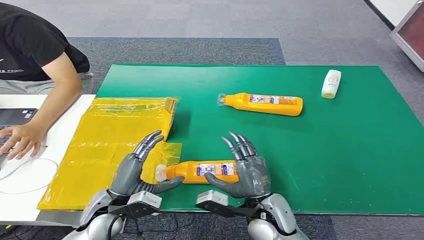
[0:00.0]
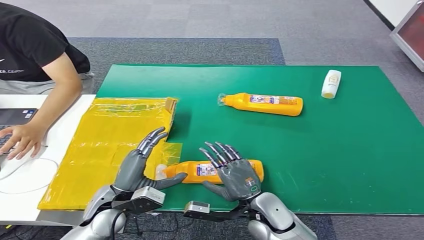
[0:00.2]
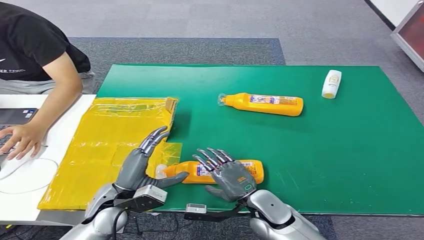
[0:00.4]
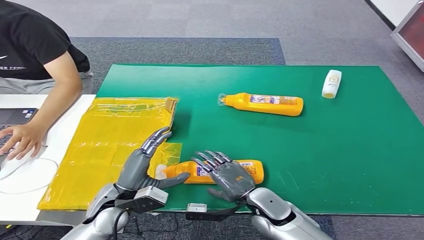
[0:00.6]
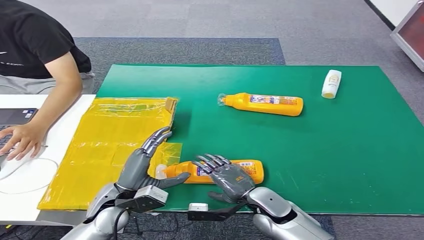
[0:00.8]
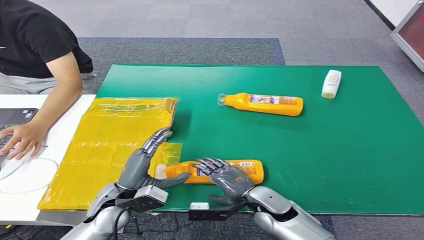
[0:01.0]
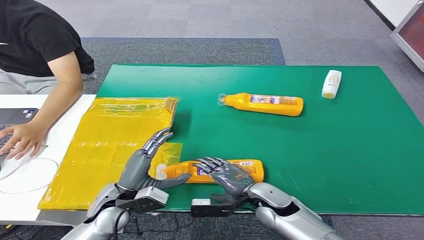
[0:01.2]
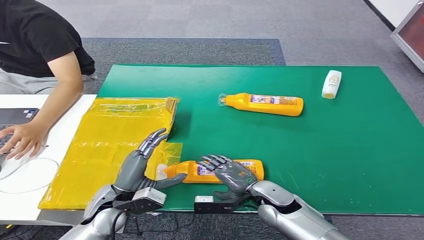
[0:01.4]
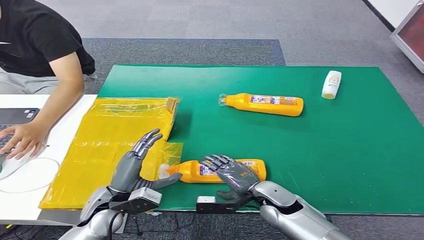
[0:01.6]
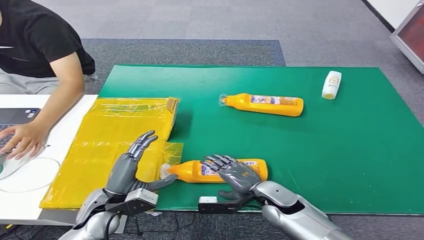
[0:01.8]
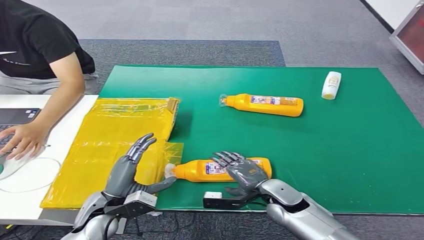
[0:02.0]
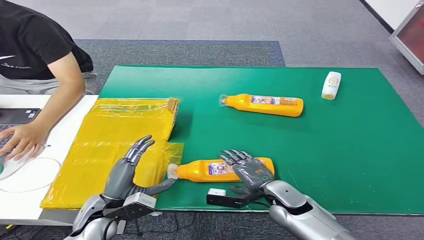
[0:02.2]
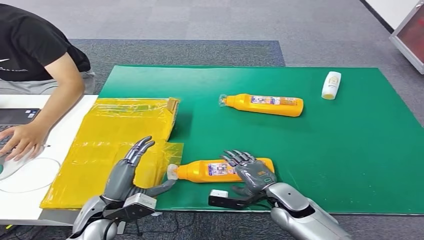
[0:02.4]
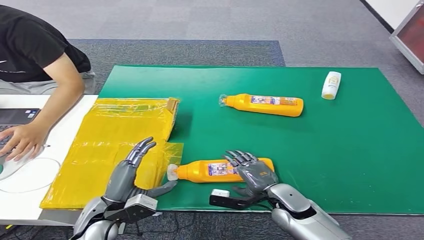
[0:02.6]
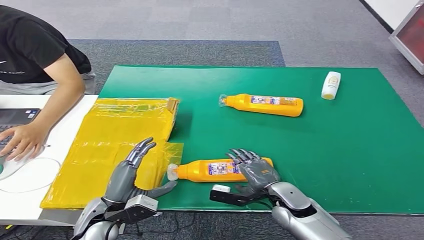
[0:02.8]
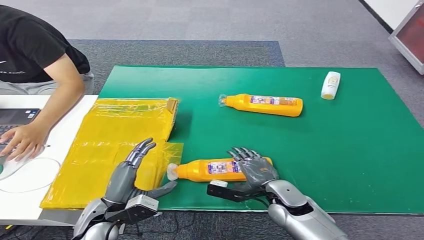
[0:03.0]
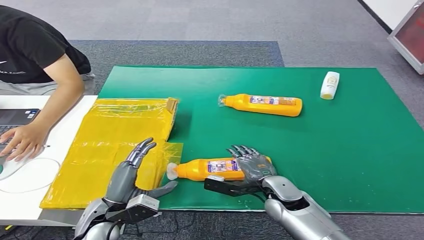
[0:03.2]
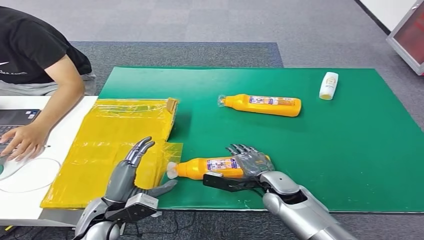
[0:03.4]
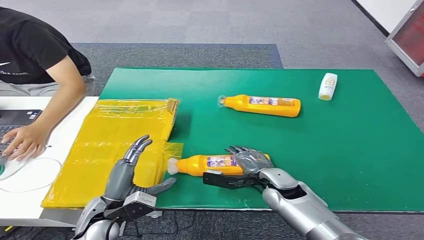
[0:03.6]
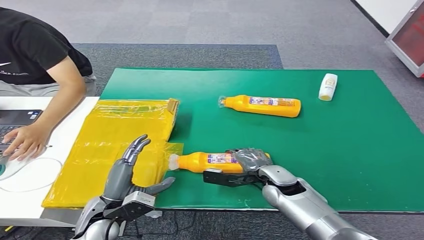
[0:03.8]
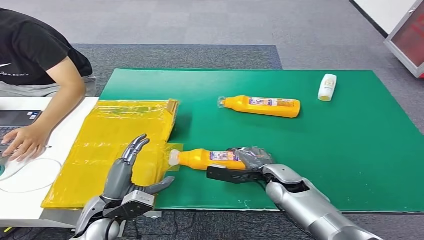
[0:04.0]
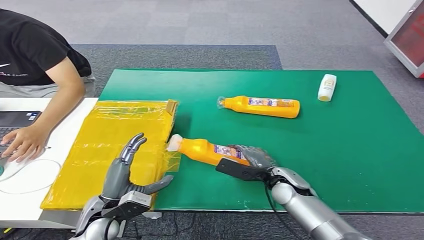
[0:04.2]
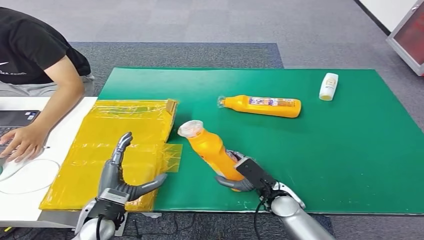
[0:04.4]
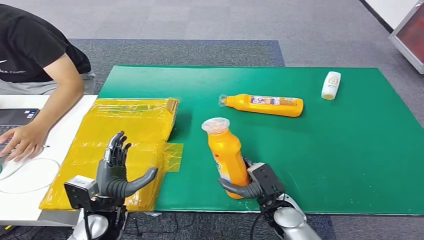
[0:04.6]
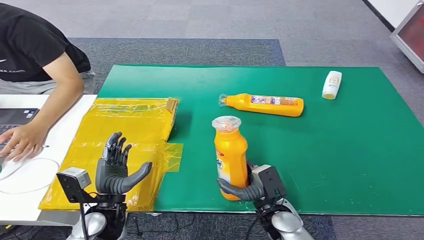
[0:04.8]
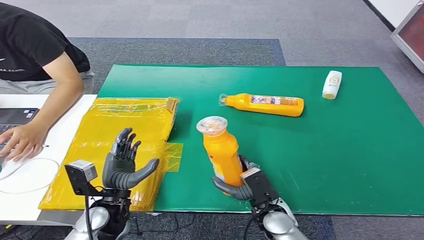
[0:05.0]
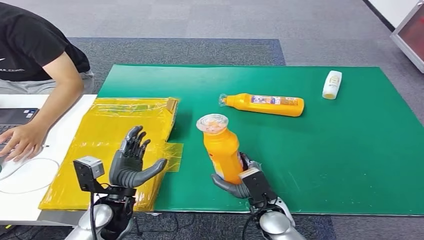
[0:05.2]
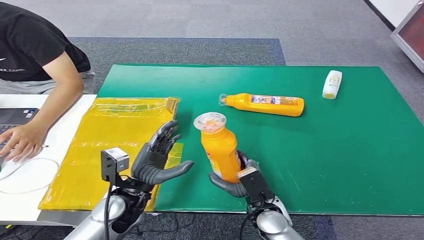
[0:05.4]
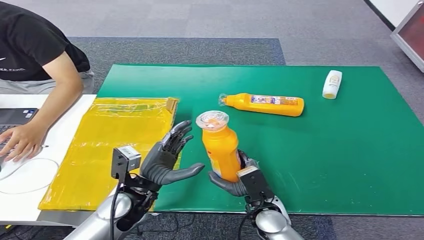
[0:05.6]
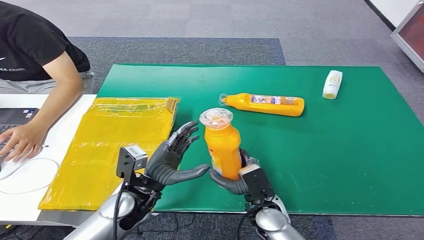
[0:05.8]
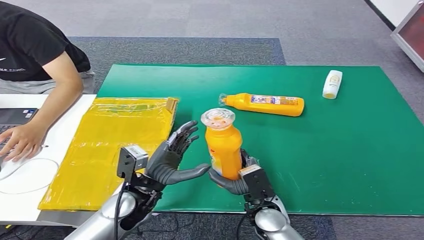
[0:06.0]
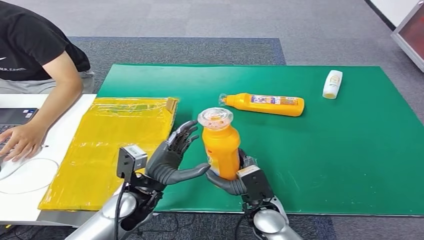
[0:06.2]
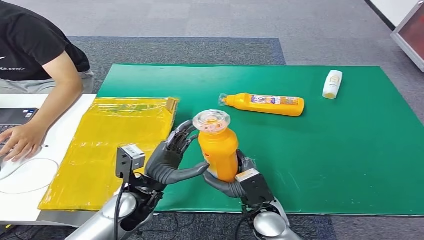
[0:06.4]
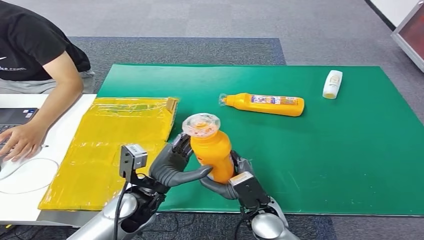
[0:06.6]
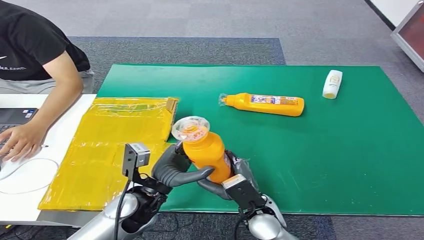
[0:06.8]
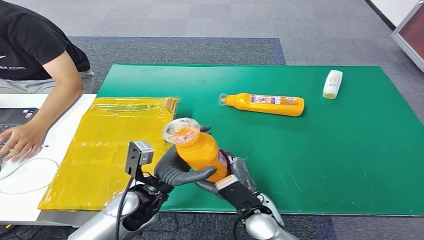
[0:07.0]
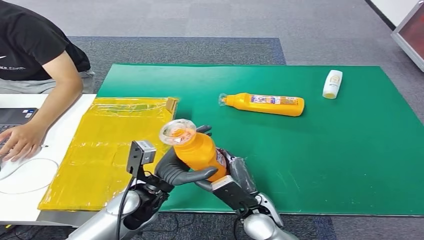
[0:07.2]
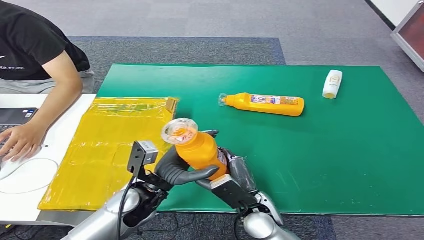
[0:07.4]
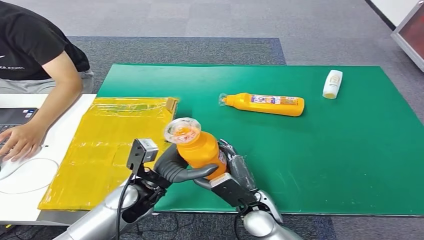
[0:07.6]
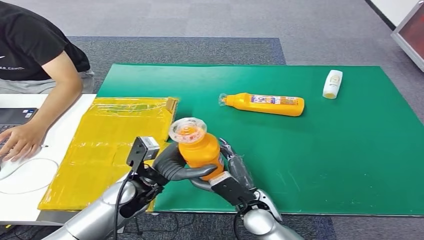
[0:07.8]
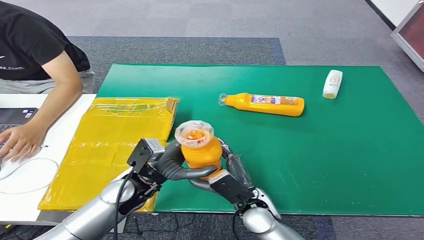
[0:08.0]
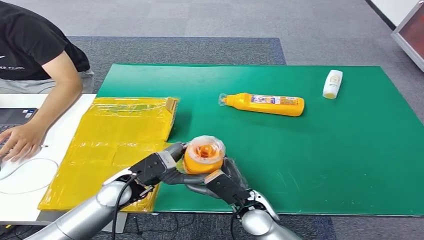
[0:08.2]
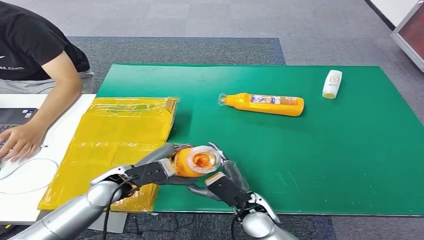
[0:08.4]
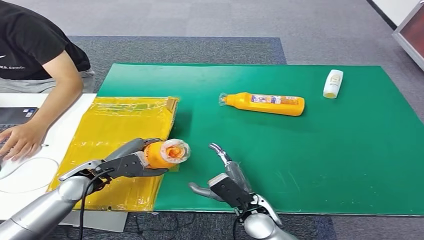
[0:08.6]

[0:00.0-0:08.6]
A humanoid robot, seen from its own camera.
Step, 0:00.0 to 0:05.4: Pick up the bottle from the table.
Step, 0:05.6 to 0:08.6: Turn the bottle to the front side.
0:01.4 to 0:02.8: The hands move only a little.
0:05.8 to 0:07.2: The hands make only small movements.
0:07.2 to 0:08.6: The left hand is displaced to the left by roughly 15 cm.

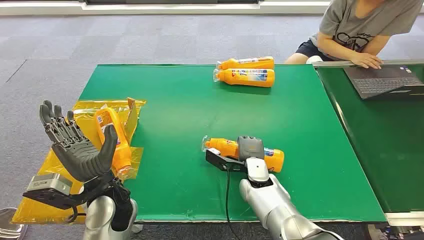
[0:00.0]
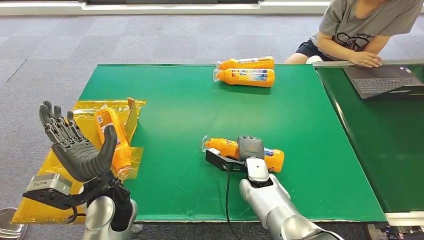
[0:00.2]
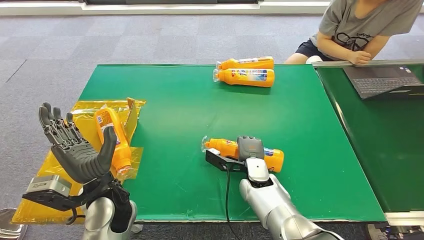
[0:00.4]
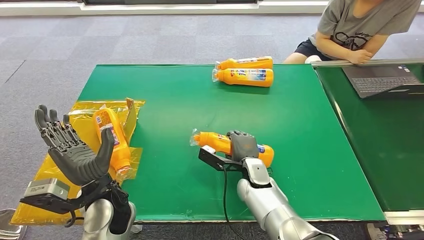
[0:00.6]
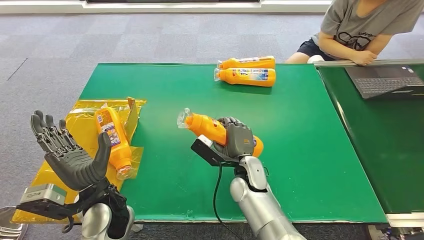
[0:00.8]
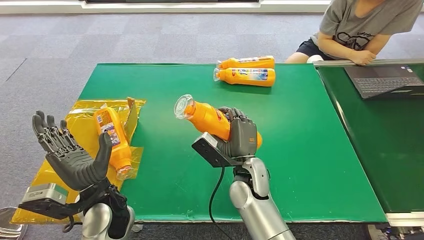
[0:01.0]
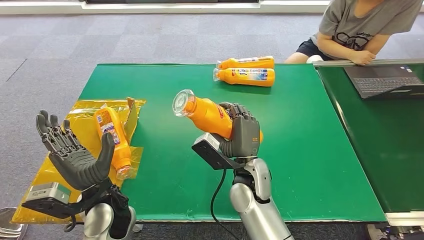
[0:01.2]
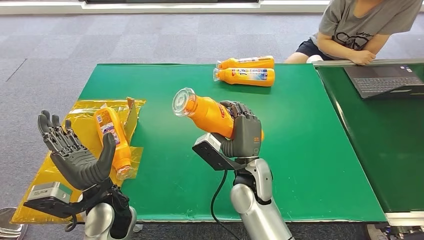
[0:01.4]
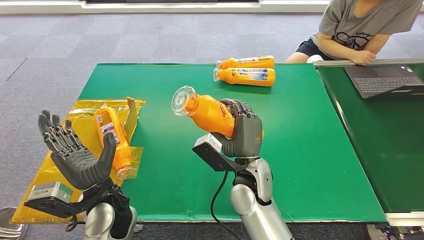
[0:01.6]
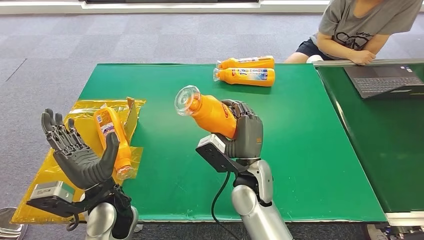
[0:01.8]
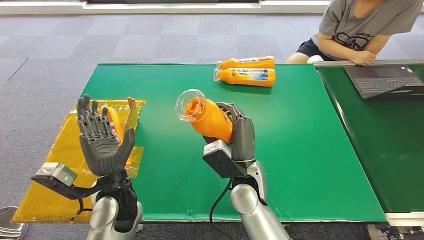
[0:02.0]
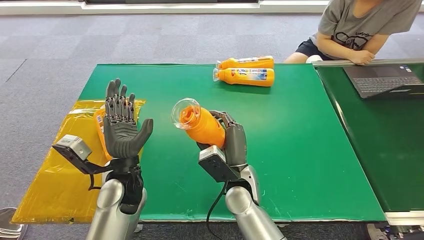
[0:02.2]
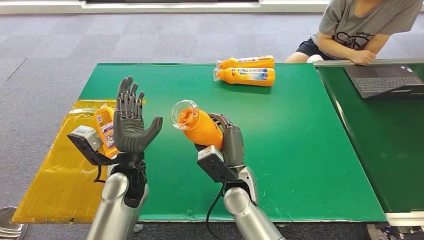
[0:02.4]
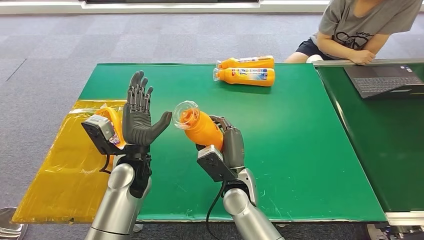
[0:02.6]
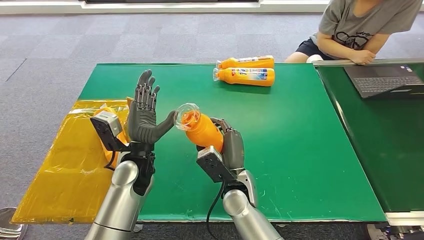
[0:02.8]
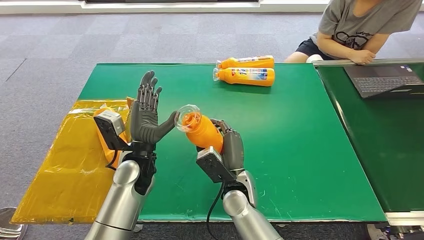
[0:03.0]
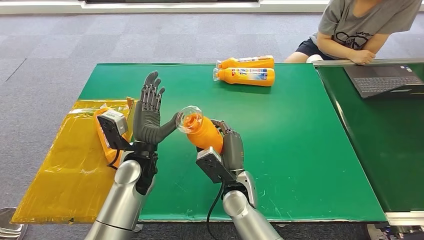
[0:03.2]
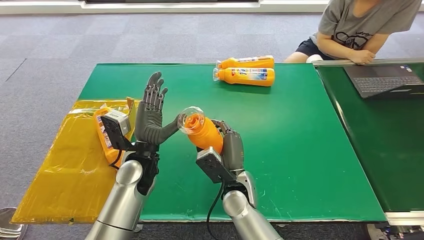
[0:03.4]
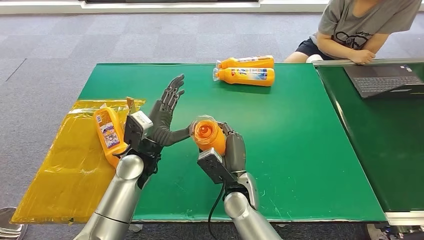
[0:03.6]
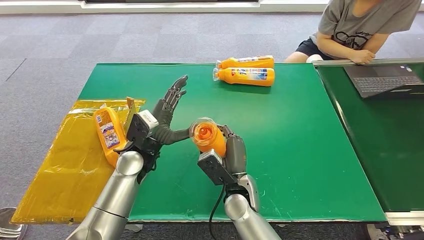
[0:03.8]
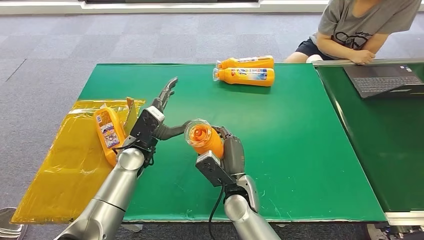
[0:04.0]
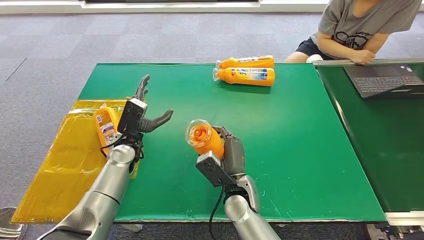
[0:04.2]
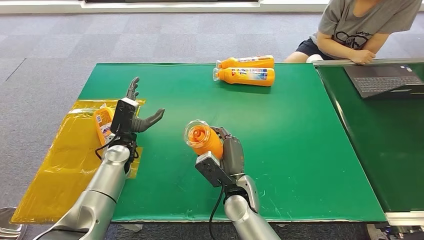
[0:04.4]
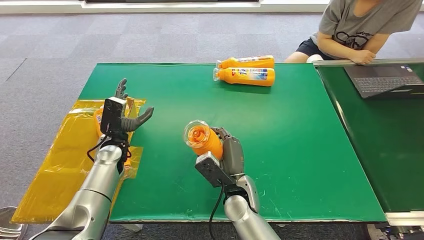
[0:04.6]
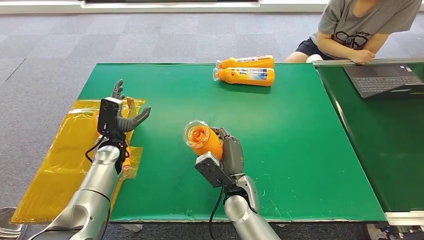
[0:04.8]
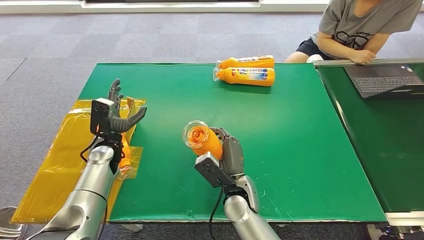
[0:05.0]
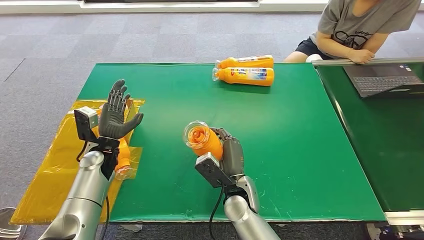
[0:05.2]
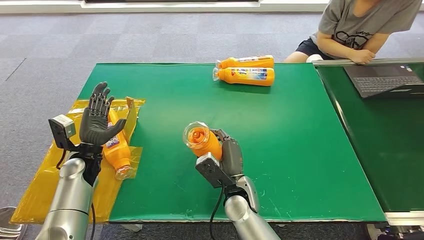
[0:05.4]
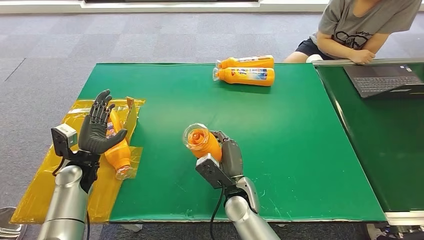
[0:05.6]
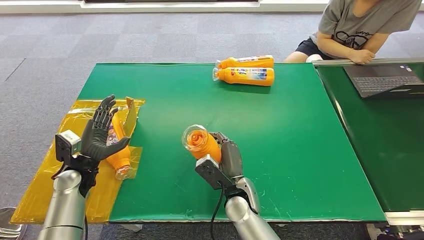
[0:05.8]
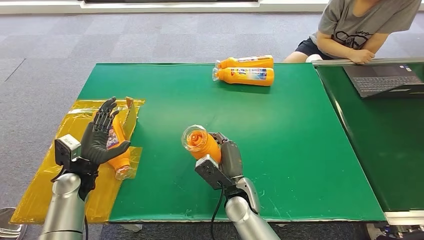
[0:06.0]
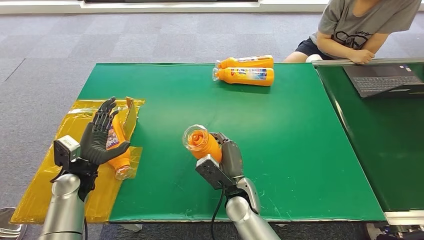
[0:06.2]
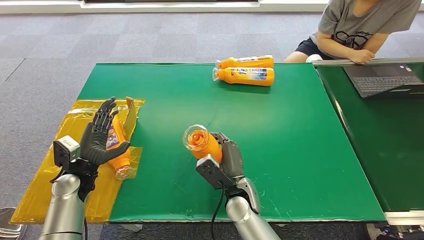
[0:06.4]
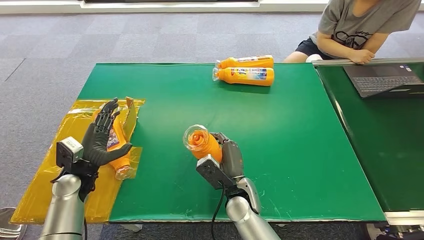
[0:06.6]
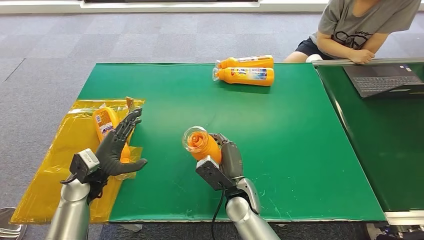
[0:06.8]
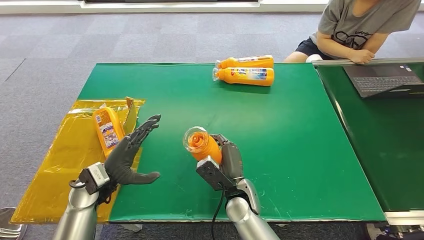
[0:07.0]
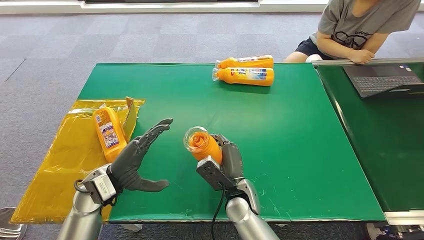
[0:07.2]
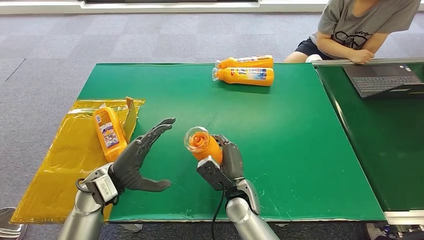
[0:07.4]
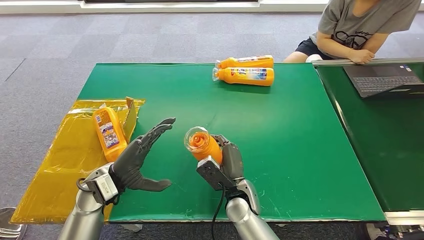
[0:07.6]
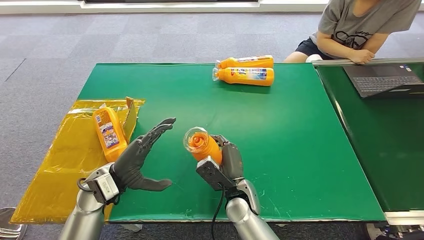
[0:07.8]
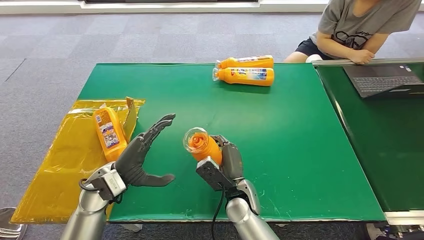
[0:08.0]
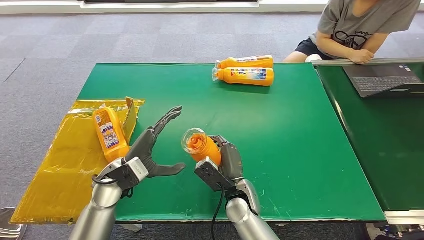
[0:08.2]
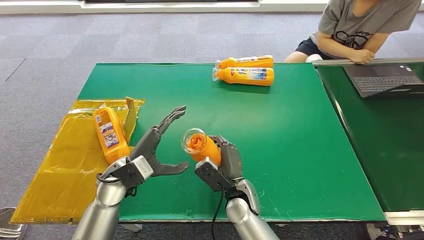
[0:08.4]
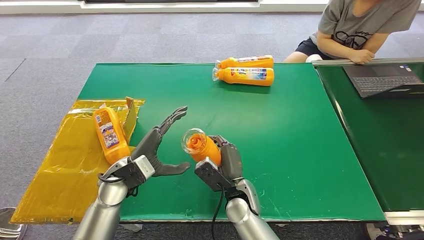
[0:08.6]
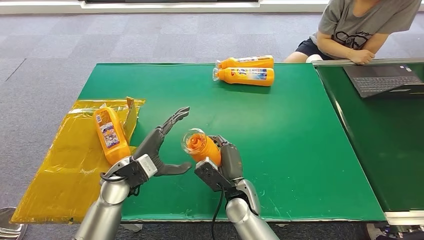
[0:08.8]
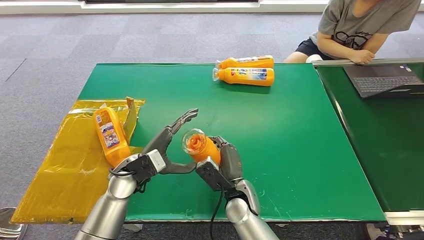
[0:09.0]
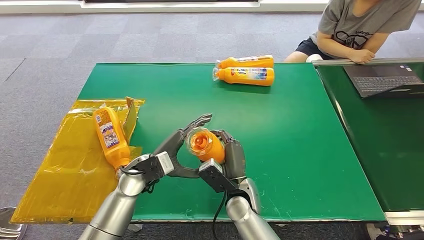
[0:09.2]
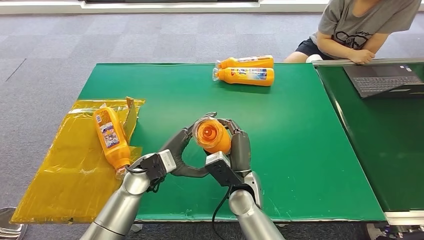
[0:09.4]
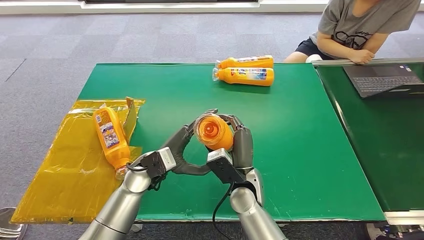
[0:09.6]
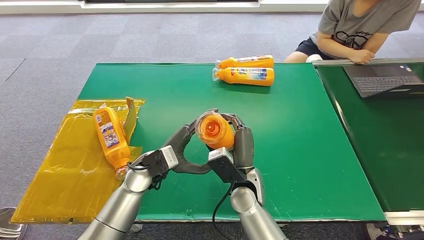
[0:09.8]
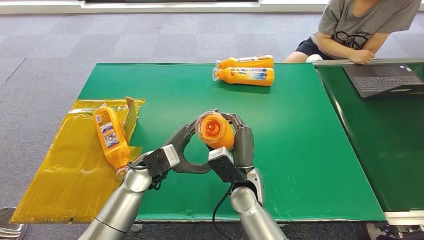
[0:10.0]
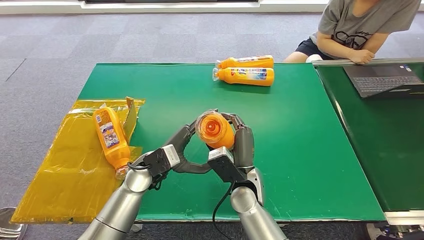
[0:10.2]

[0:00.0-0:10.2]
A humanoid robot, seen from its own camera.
Step, 0:00.0 to 0:01.6: Pick up the bottle from the table.
0:01.4 to 0:03.0: The left hand moves forward, some 10 cm; the right hand heads downward, covering roughly 5 cm.
0:03.0 to 0:04.4: The left hand is displaced to the left by some 10 cm.
0:04.4 to 0:05.8: The left hand is displaced to the left and backward by some 10 cm.
0:05.8 to 0:07.2: The left hand moves to the right, roughly 10 cm.
0:07.2 to 0:08.8: The left hand shifts by some 5 cm.
0:08.8 to 0:10.2: The left hand moves to the right, roughly 5 cm; the right hand shifts by about 5 cm.
